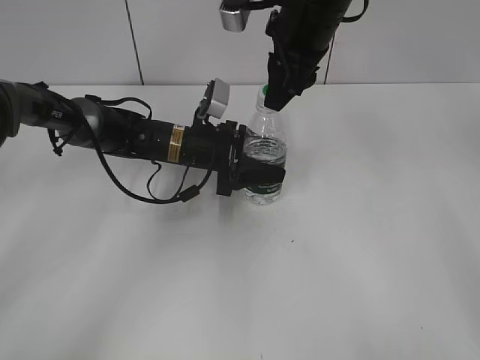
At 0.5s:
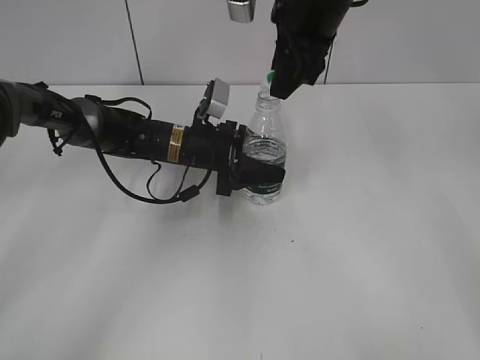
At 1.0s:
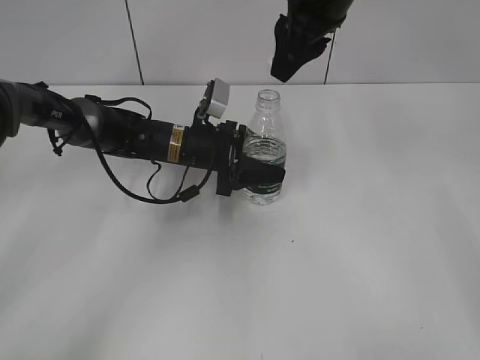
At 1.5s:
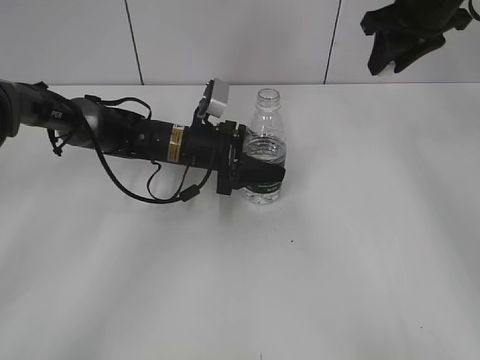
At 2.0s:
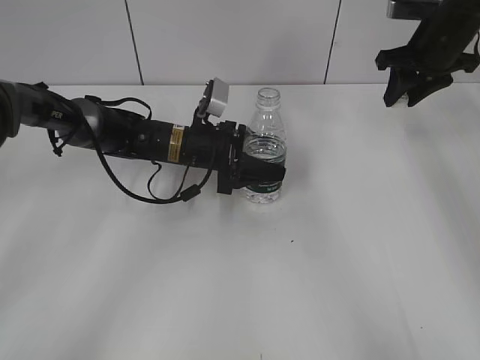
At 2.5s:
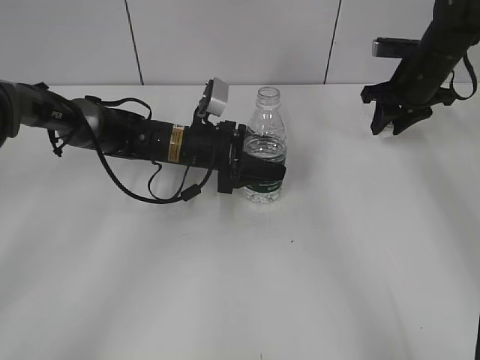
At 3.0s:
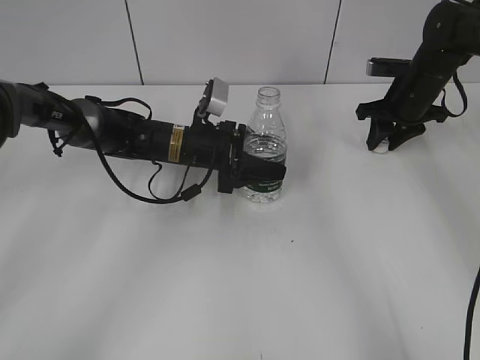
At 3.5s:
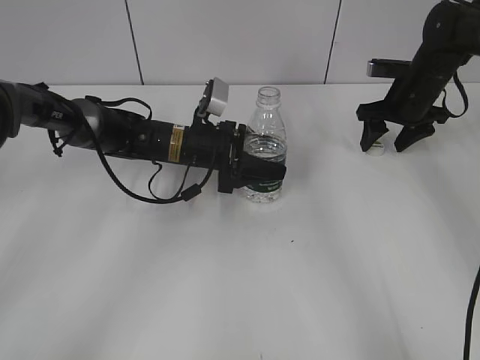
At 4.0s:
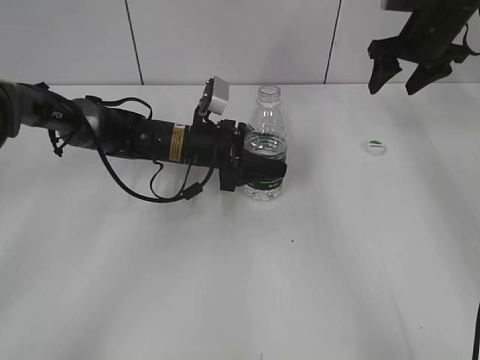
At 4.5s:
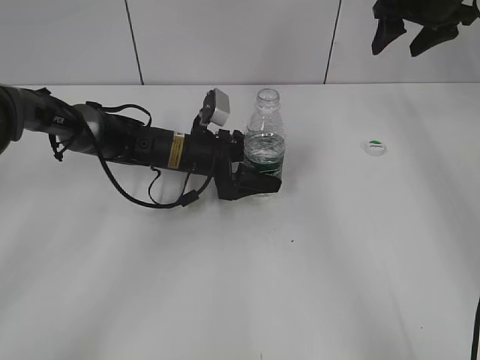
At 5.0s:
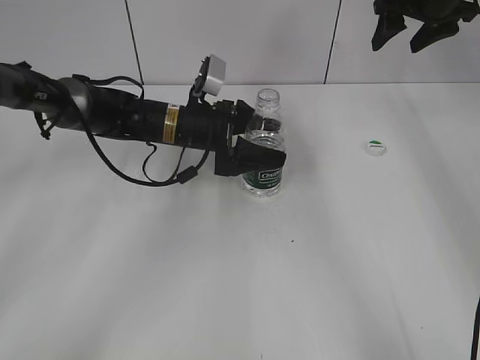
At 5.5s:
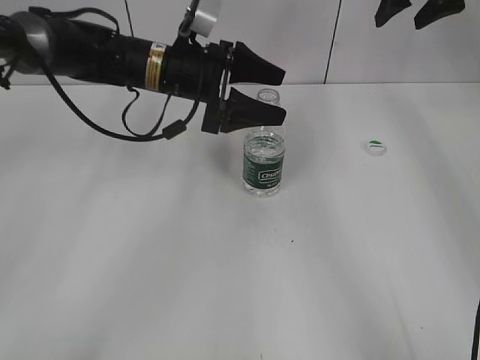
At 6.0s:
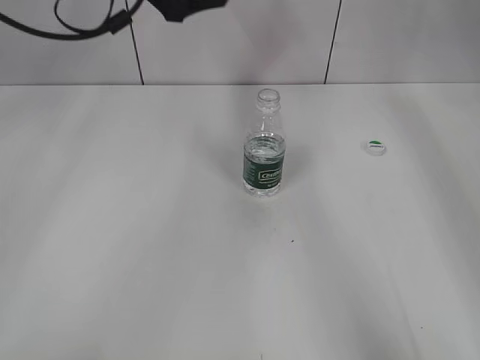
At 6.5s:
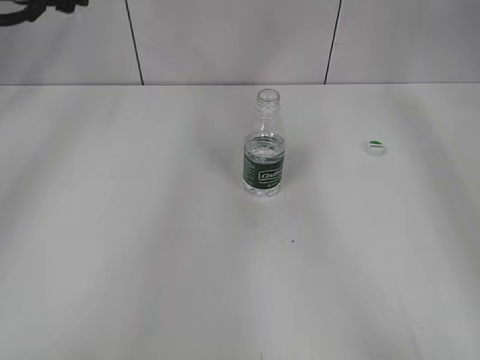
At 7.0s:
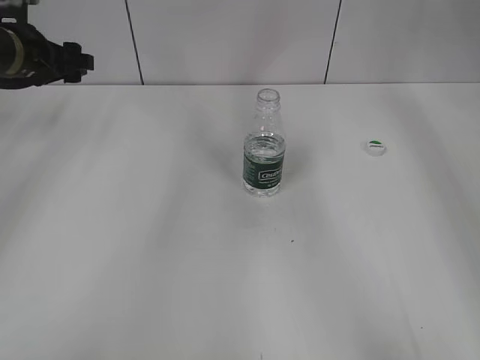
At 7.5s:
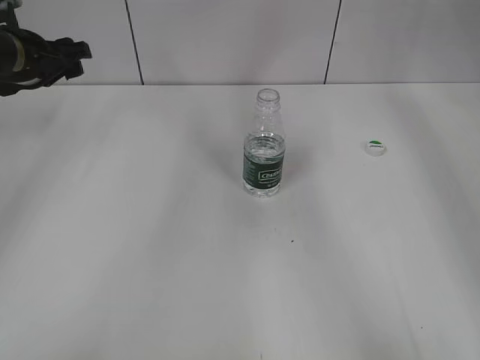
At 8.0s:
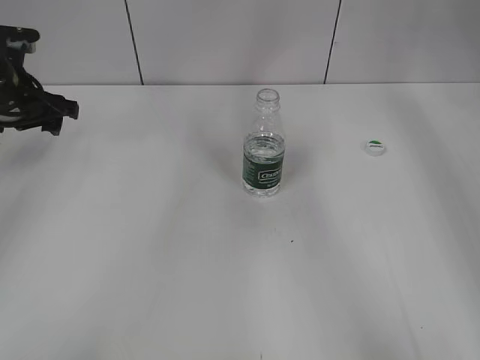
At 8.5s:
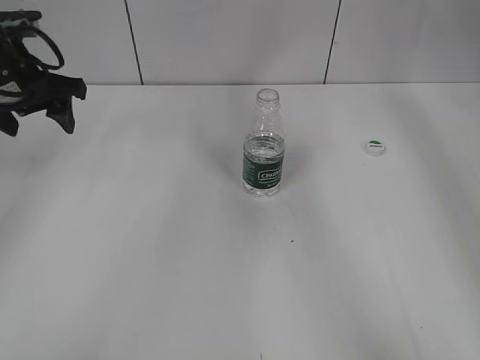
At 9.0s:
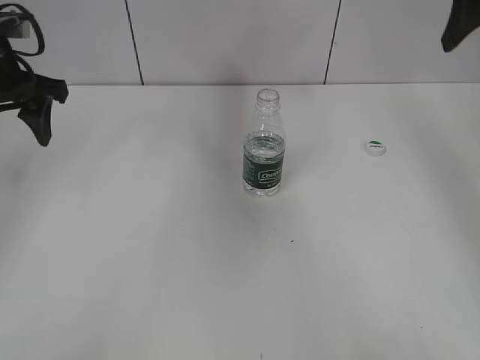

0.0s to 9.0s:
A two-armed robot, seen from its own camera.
Step, 1.0s to 3.5s: Place the bottle cap on the table with the right gripper.
Step, 4.0s to 5.5s: Place the bottle on the table with the left gripper.
0.0s to 2.0s: The right gripper goes about 20 cm to the right and forward.
2.0s to 4.5s: The left gripper opens its fingers. Meanwhile the right gripper goes downward and returns, about 10 cm each way, and opens.
4.5s to 7.0s: The right gripper is displaced upward by about 10 cm. Meanwhile the left gripper is displaced to the left and upward by approximately 25 cm.
7.0s to 9.0s: Both grippers move backward, roughly 10 cm.

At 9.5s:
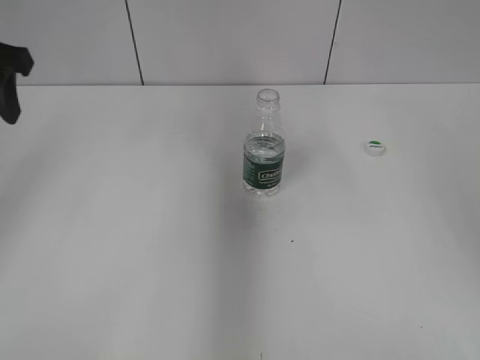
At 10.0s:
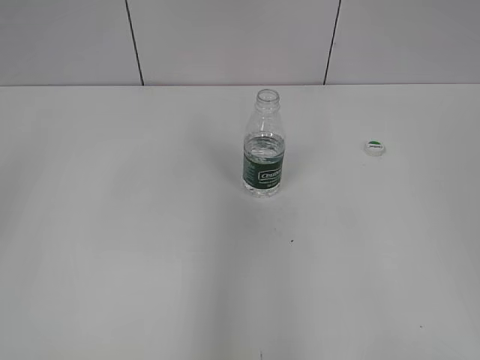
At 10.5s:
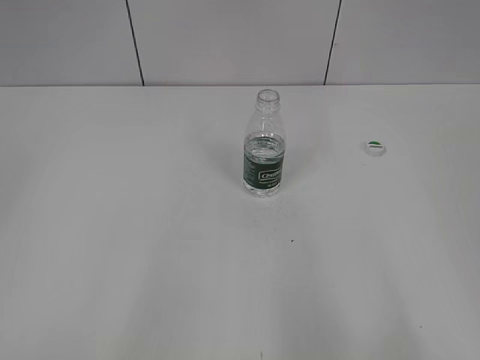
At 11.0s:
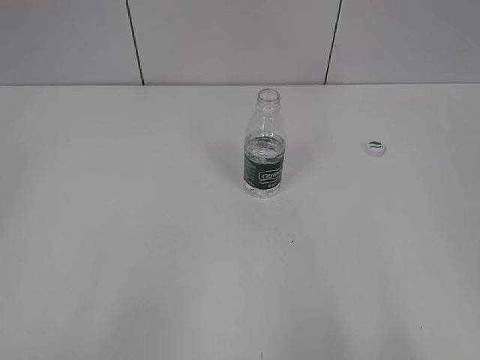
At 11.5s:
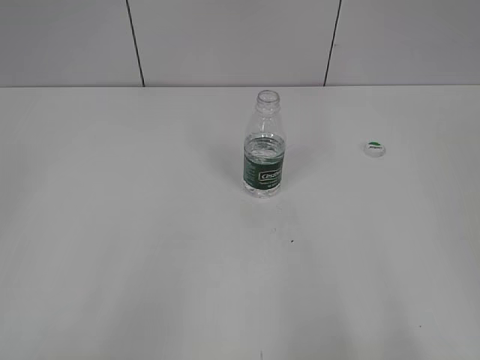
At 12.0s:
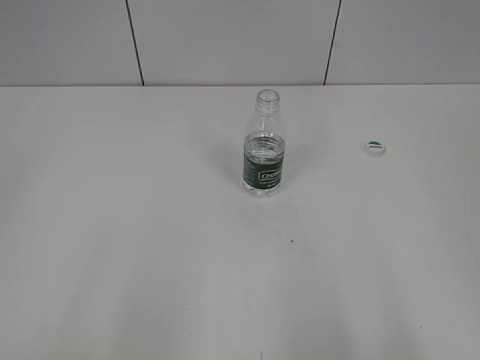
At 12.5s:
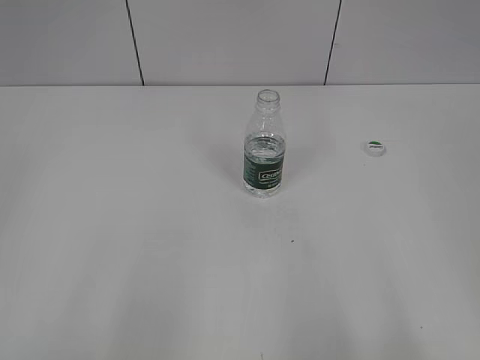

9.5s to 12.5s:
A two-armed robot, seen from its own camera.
9.5s to 11.0s: The grippers both shift backward by roughly 30 cm.

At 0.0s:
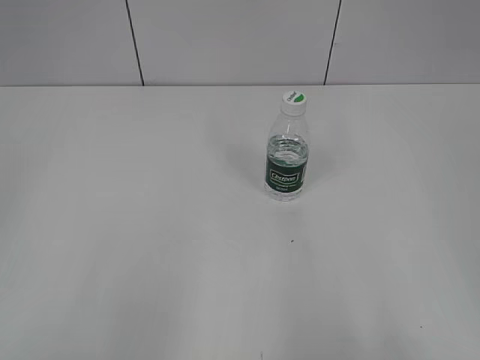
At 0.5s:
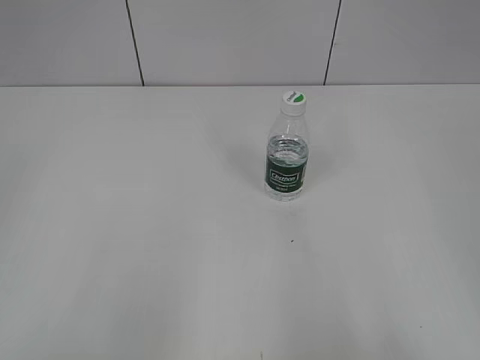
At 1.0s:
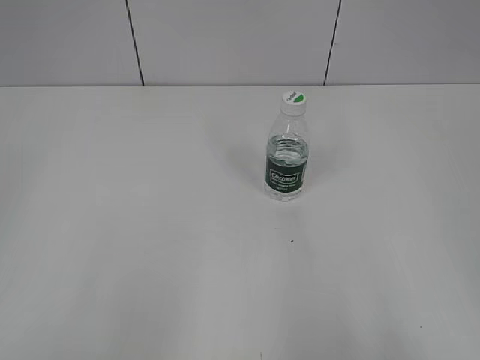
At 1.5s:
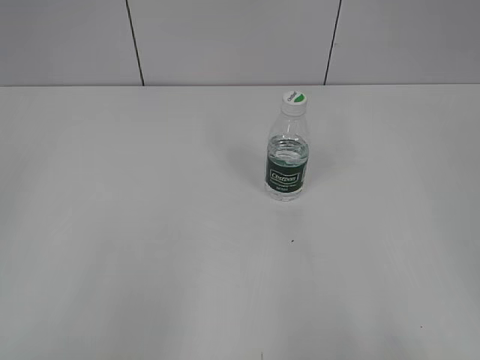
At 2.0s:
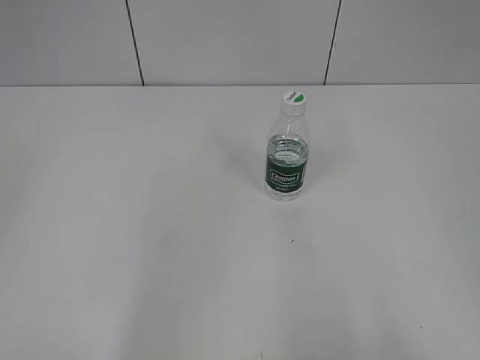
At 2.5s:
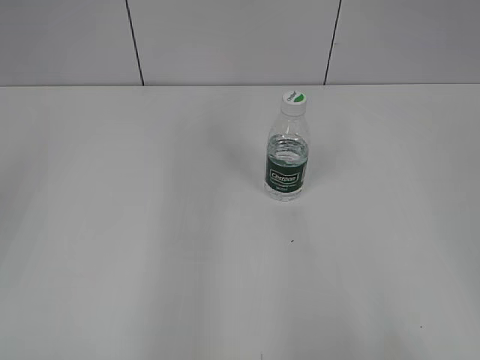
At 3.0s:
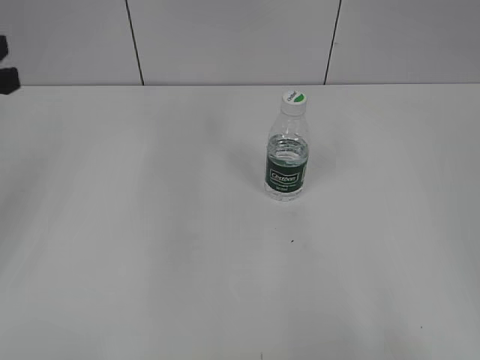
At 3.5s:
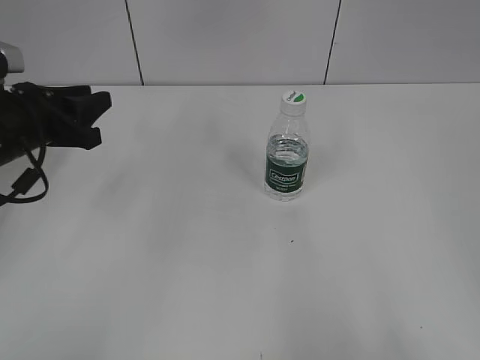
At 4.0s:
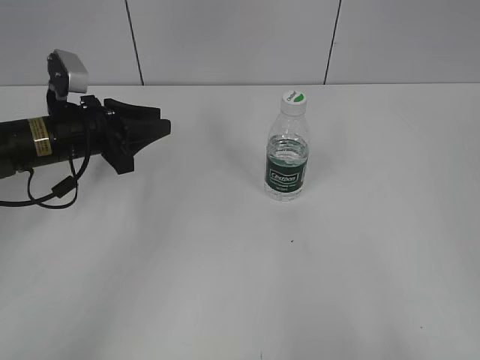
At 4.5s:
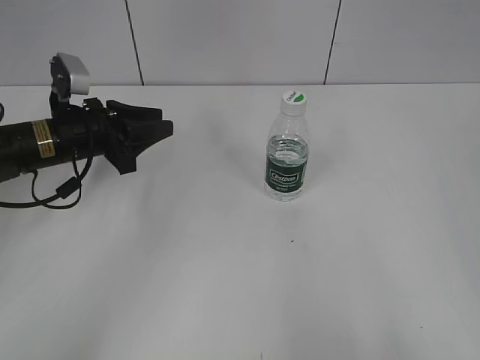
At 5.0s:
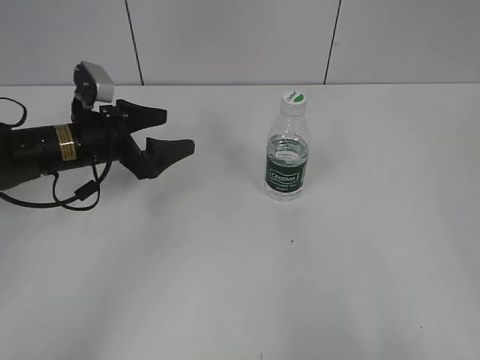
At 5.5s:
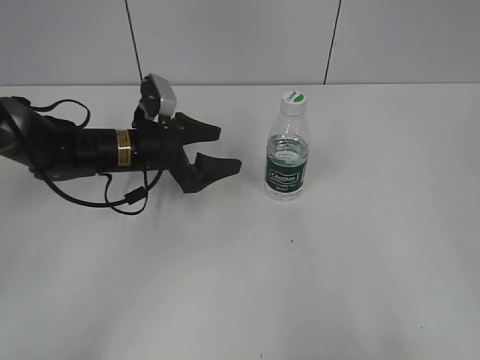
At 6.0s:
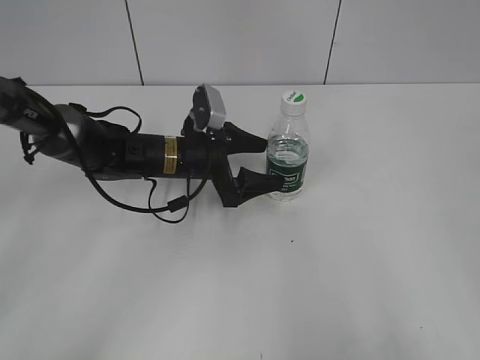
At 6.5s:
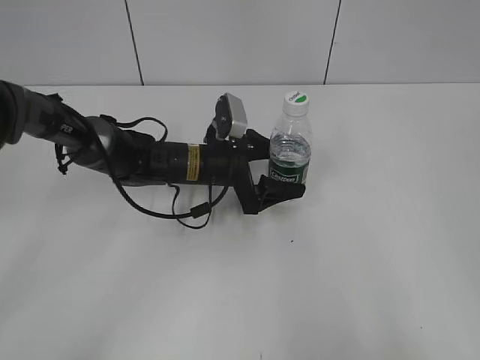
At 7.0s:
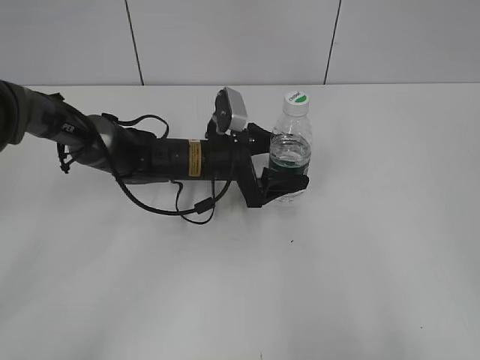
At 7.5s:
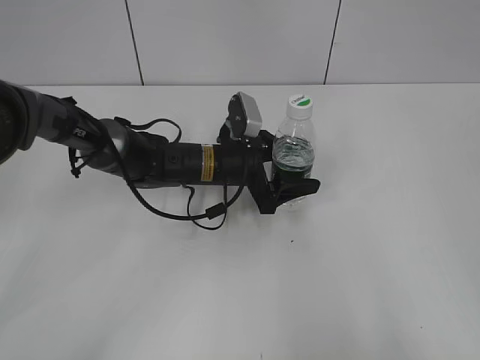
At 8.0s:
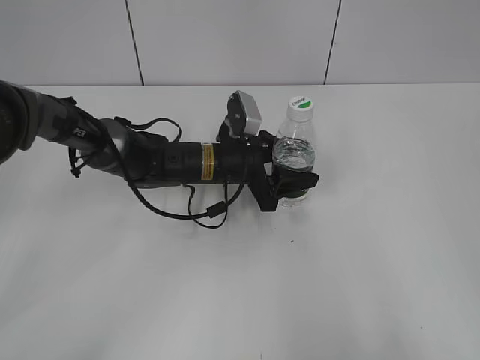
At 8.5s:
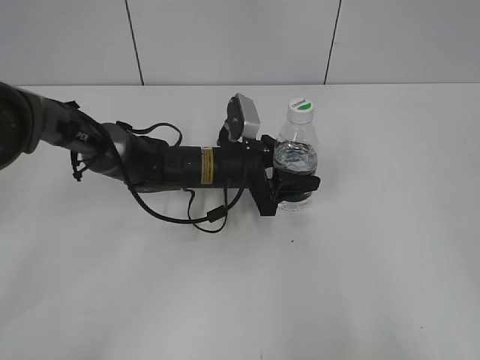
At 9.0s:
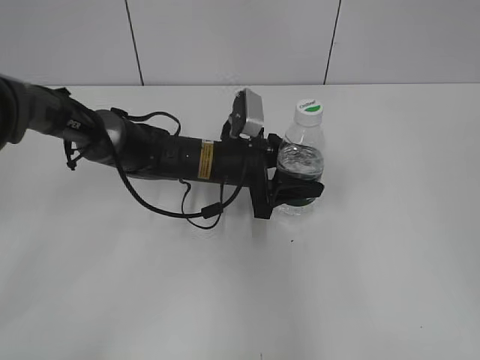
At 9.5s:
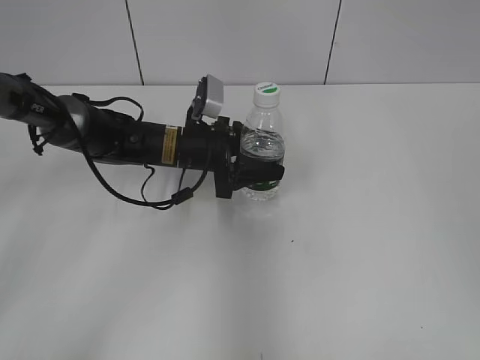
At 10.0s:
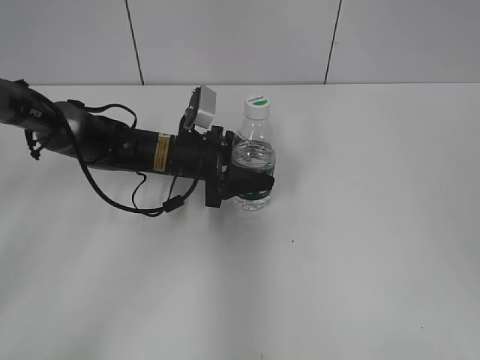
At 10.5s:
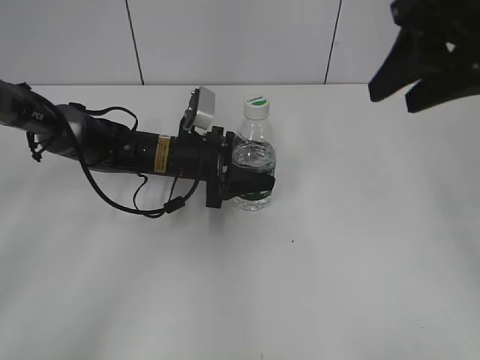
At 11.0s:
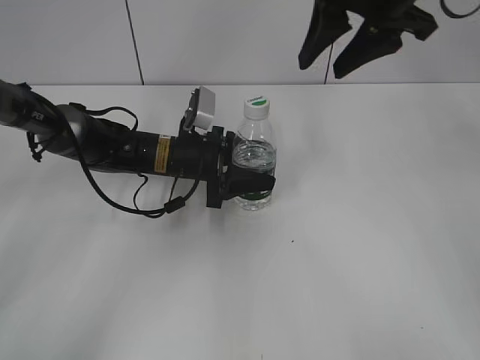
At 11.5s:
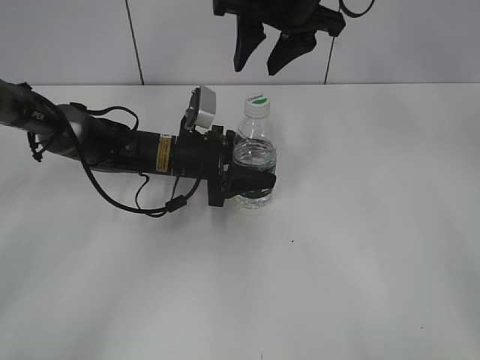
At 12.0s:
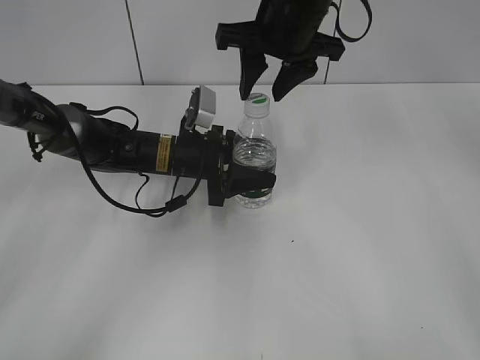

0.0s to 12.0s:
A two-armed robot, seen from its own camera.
Step, 0.0s to 7.5s: Grasp the bottle and move it to the center of the table with the left gripper.
Step, 8.0s to 10.0s: Lift the bottle and move it to the center of the table with the left gripper.
2.0s to 4.0s: The left gripper moves forward and downward, roughly 40 cm.
4.0s to 6.0s: The left gripper goes some 15 cm to the right, and opens.
6.0s to 8.0s: The left gripper closes its fingers.
8.0s to 10.0s: The left gripper goes about 5 cm to the left. The right gripper heads forward, covering roughly 20 cm.
10.0s to 12.0s: The right gripper is displaced forward and to the left by approximately 30 cm.

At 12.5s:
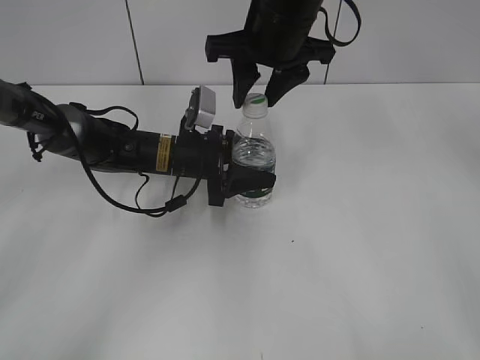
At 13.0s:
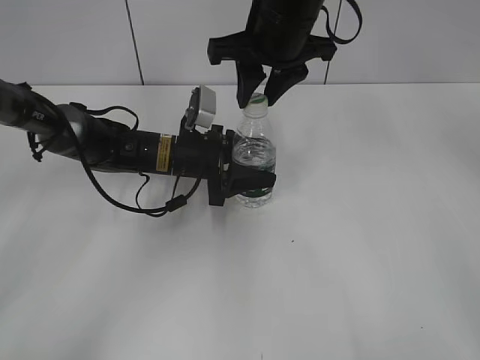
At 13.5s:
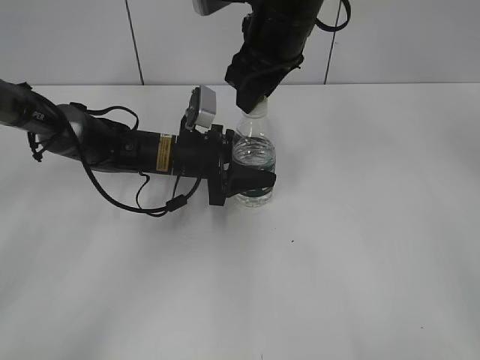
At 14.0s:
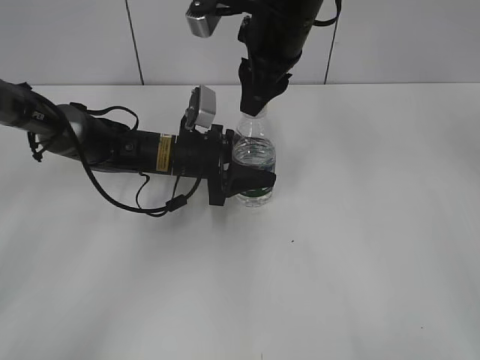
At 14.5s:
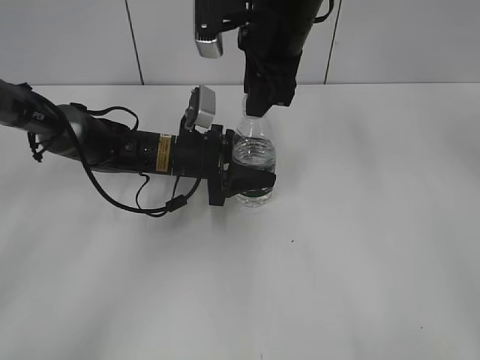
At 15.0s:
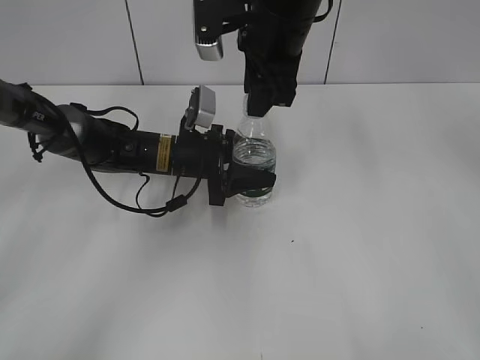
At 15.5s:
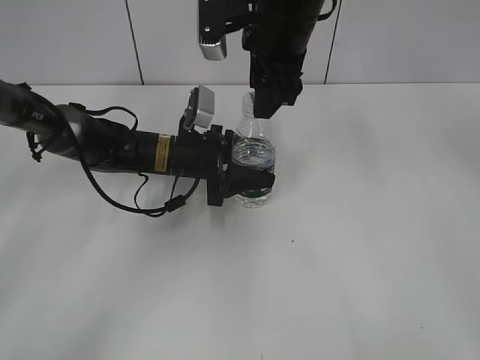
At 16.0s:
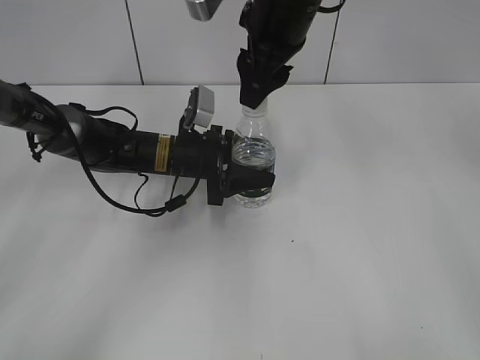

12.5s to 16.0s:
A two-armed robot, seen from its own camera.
14.5s to 16.0s: The right gripper opens its fingers.
